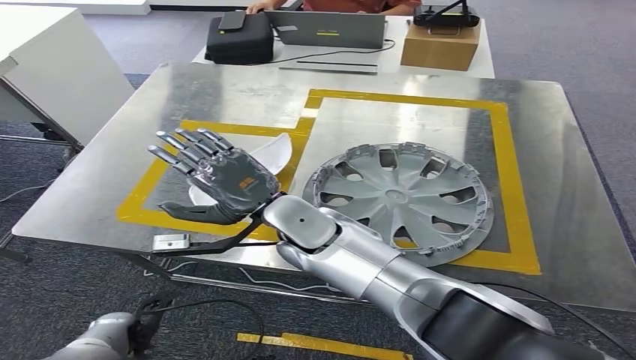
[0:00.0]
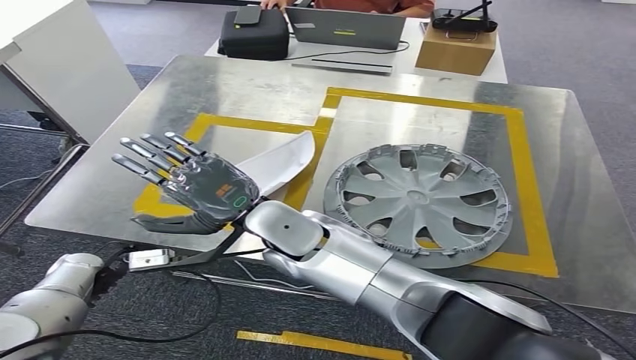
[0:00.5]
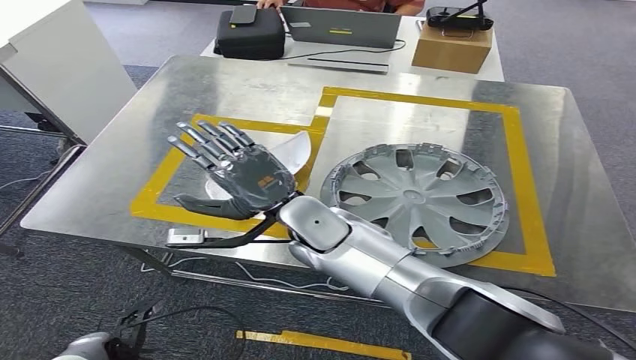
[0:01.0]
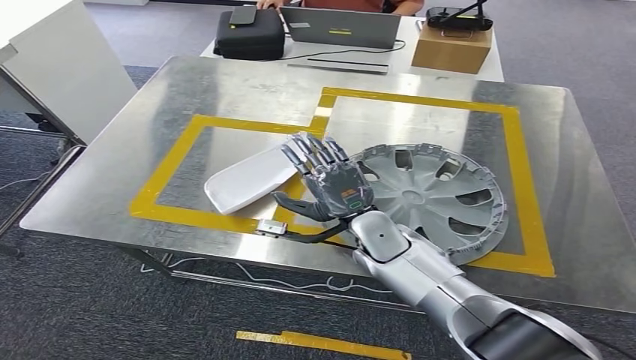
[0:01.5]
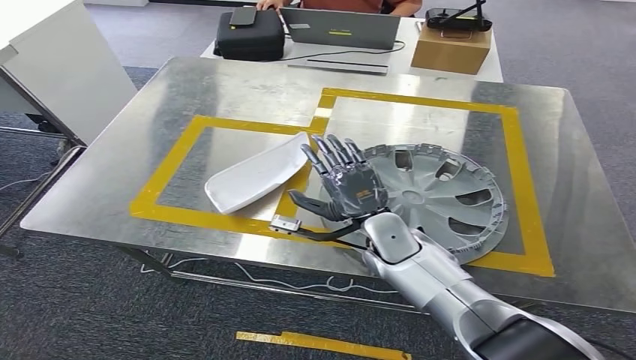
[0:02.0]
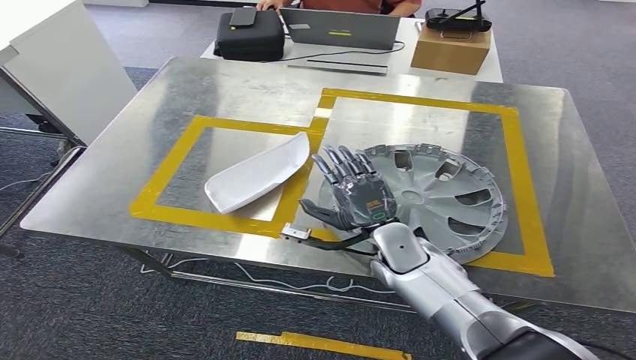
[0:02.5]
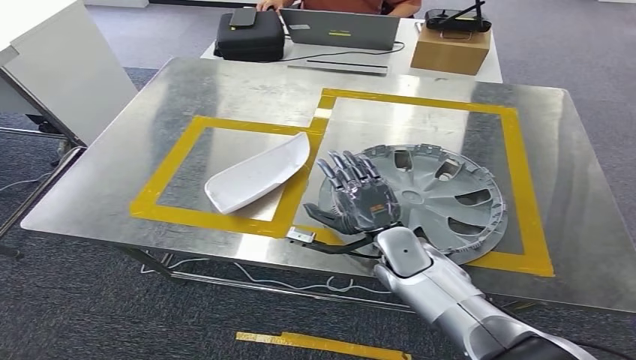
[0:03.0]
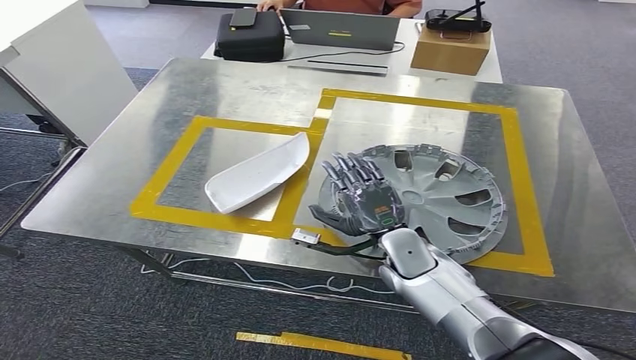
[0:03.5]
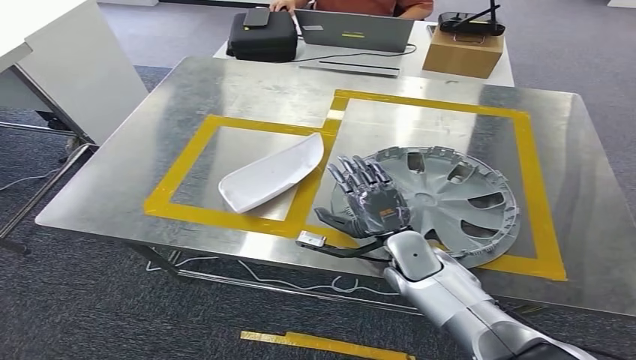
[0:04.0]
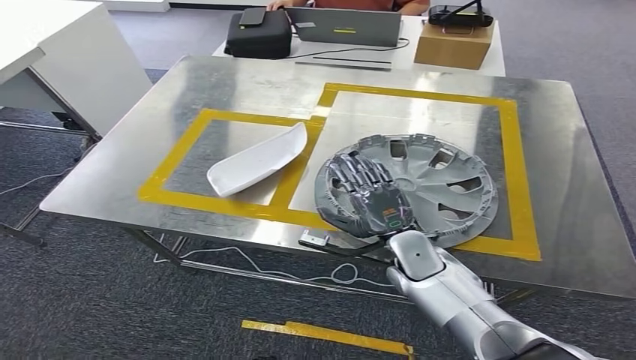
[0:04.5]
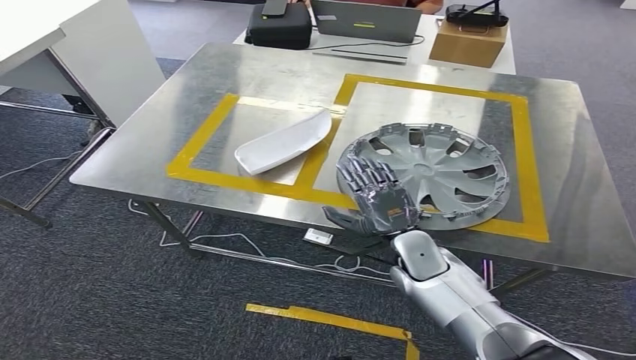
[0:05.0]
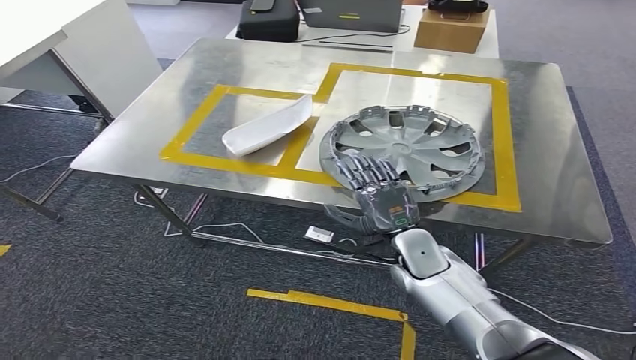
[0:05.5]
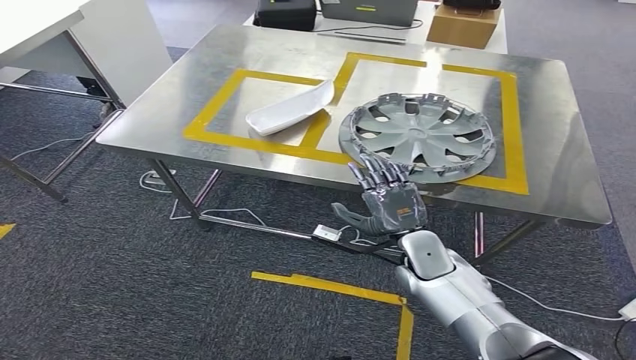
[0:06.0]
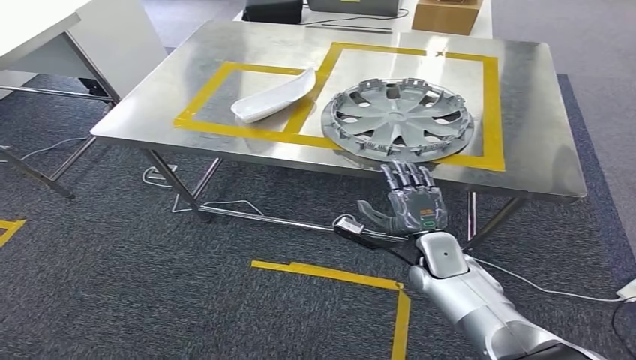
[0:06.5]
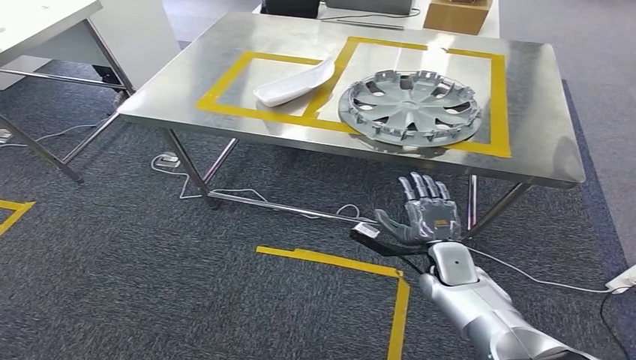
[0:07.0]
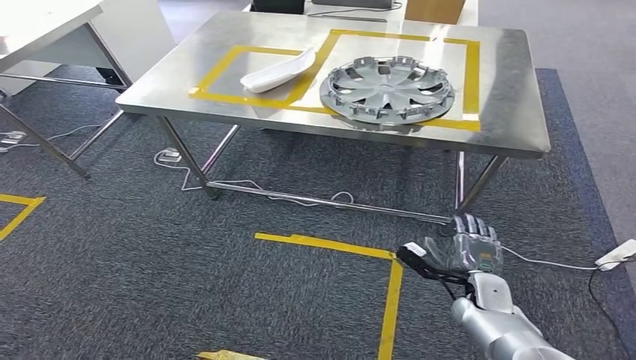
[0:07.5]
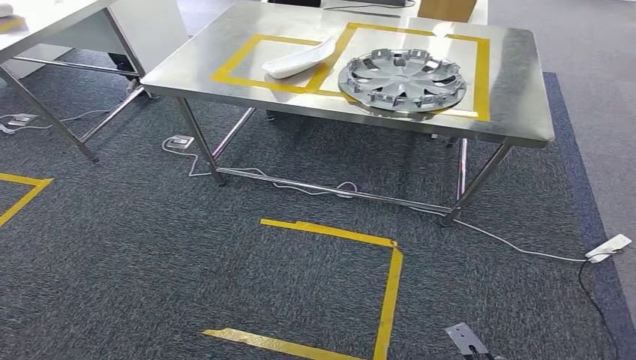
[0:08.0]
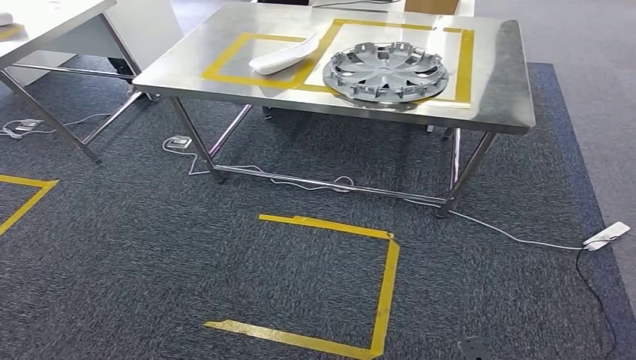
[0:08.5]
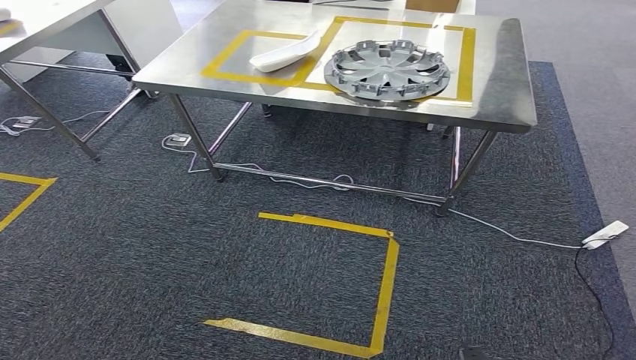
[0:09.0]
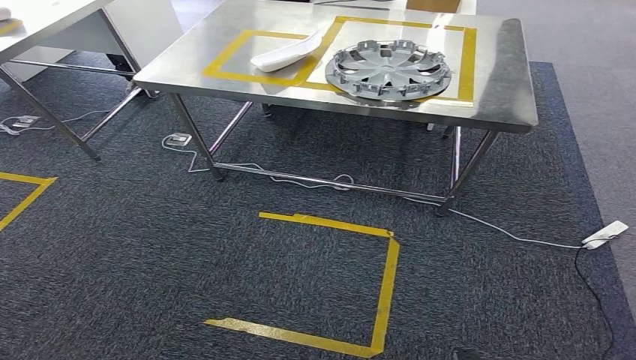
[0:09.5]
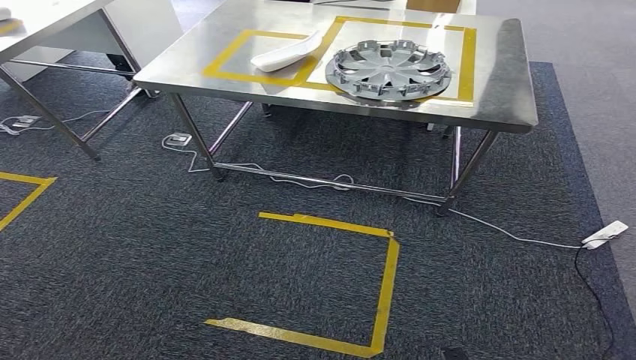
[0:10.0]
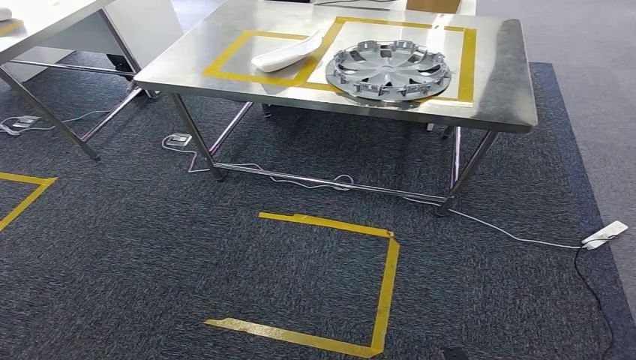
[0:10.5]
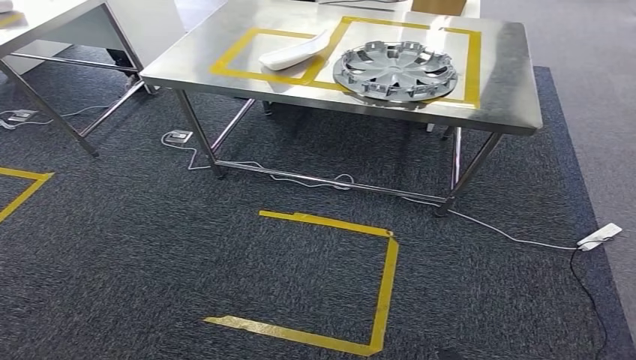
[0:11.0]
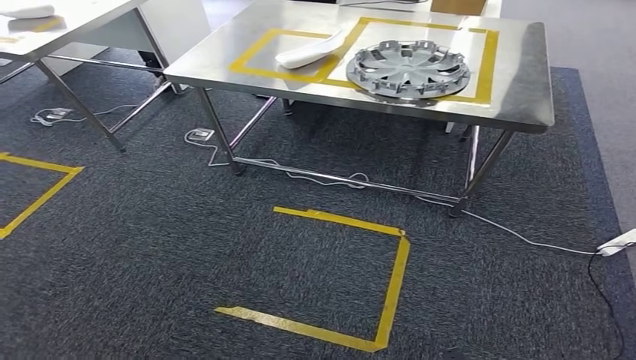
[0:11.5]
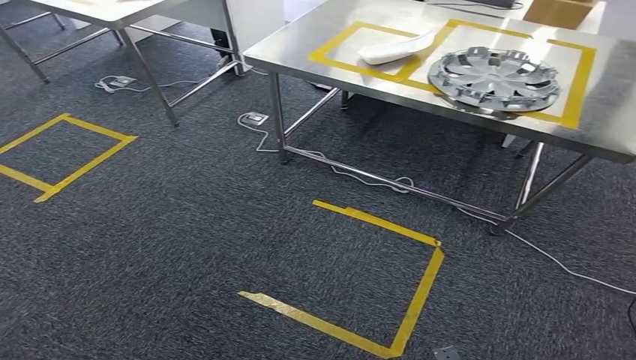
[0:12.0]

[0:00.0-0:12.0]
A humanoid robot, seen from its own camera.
Step, 0:00.0 to 0:04.5: Insert the small component into the corresponding slot on the workbench.

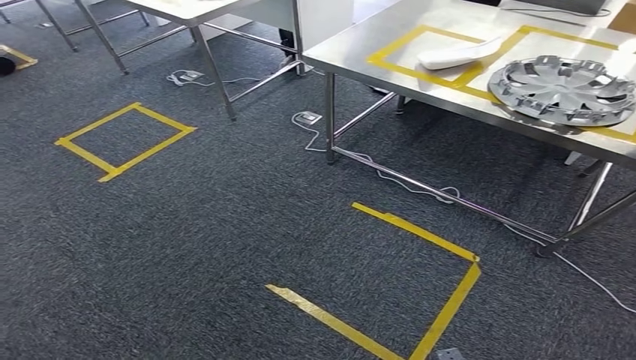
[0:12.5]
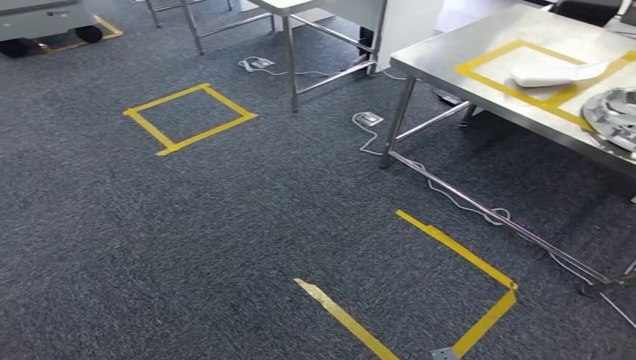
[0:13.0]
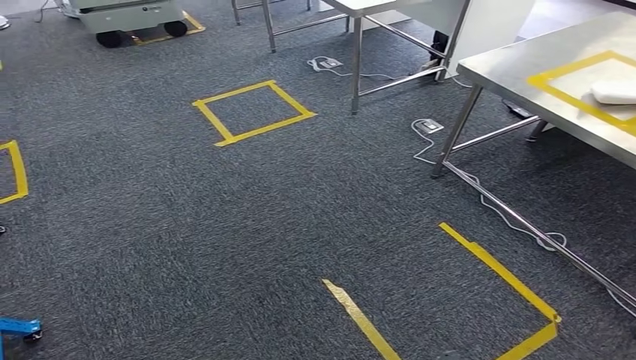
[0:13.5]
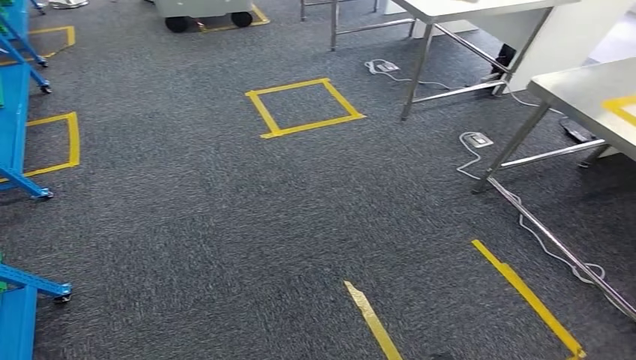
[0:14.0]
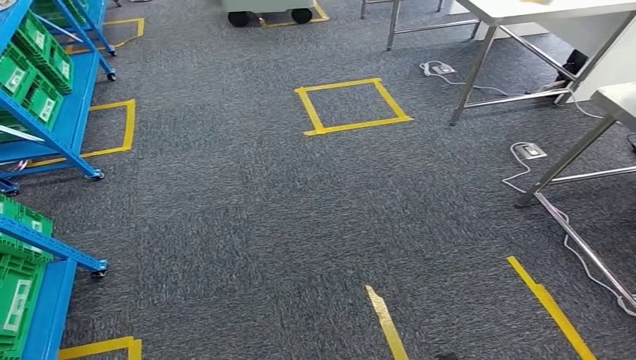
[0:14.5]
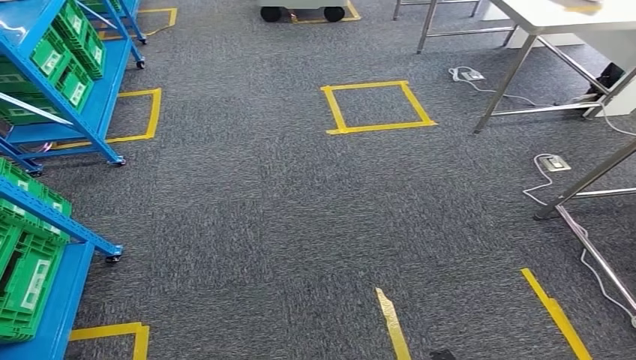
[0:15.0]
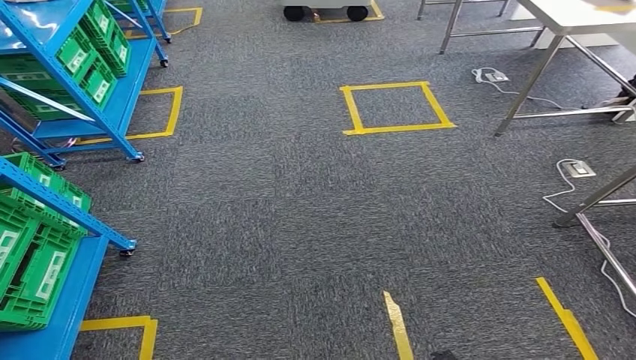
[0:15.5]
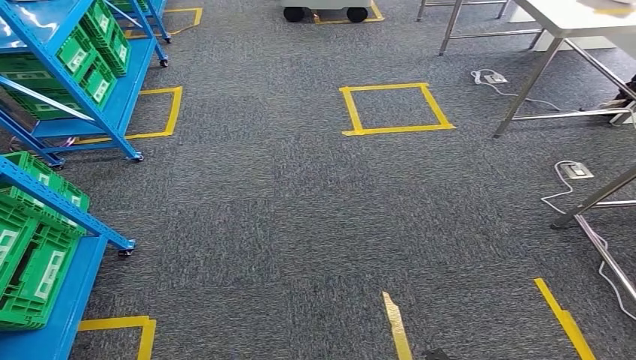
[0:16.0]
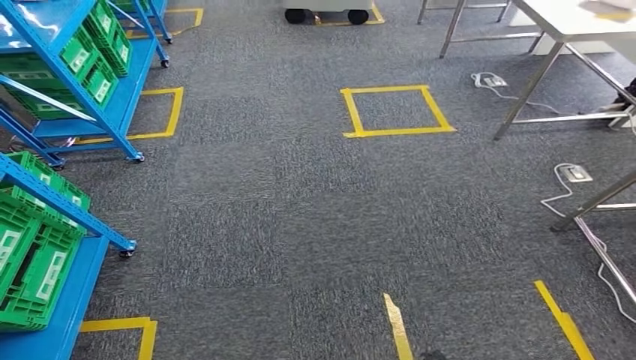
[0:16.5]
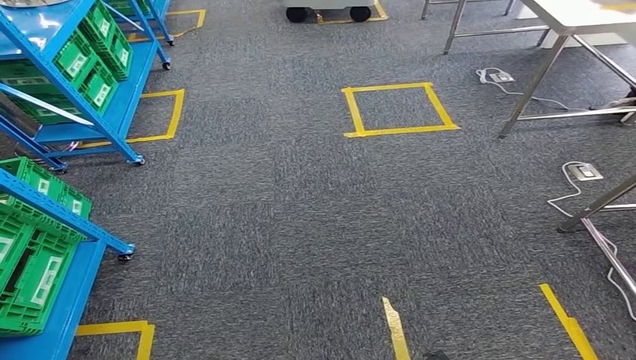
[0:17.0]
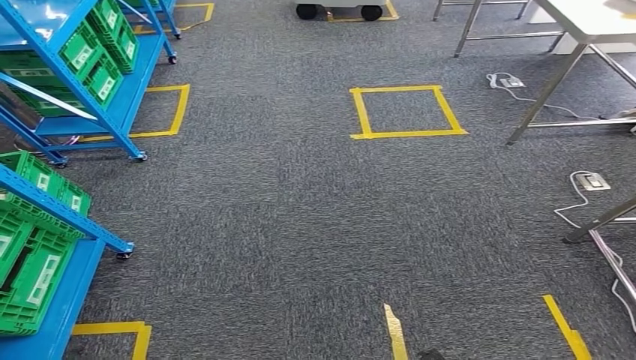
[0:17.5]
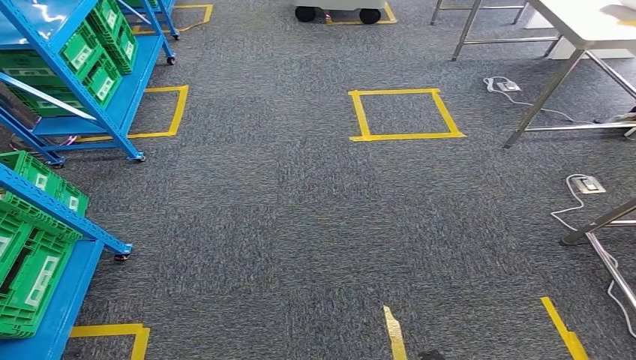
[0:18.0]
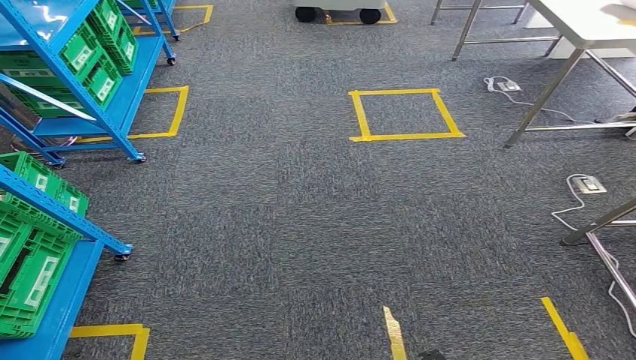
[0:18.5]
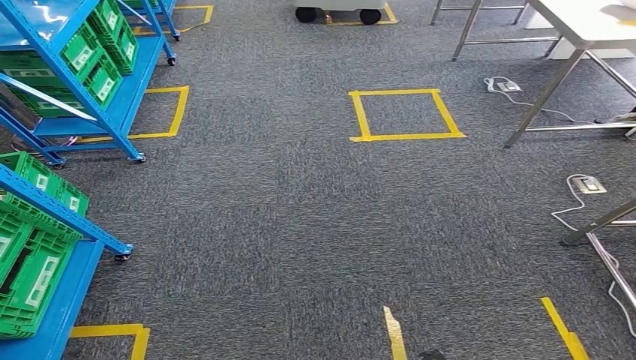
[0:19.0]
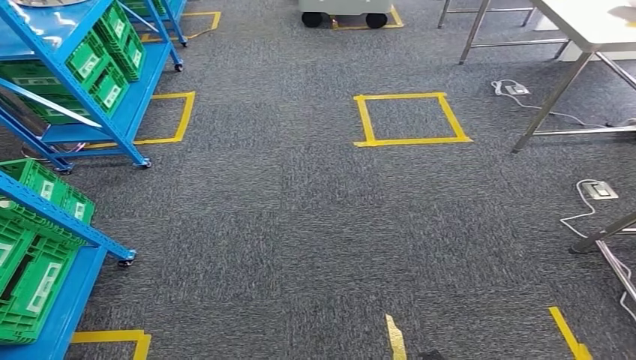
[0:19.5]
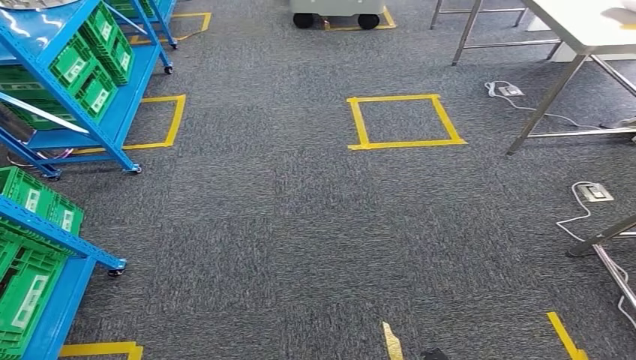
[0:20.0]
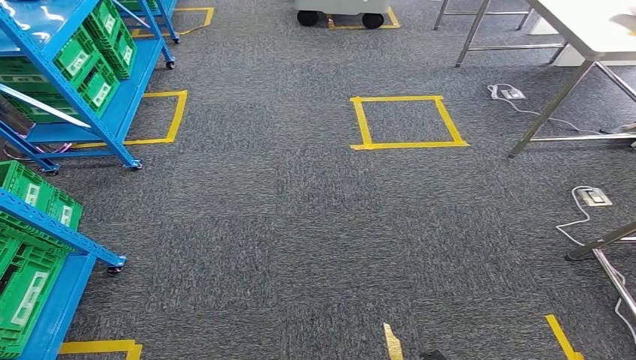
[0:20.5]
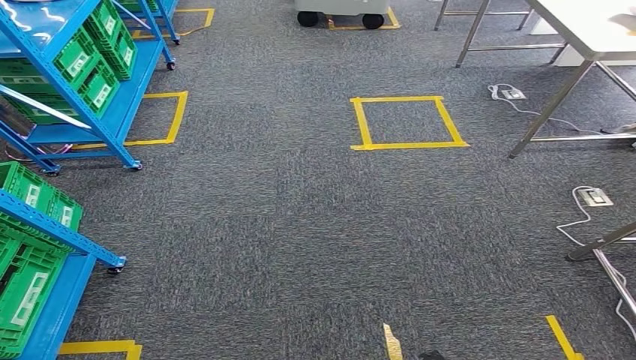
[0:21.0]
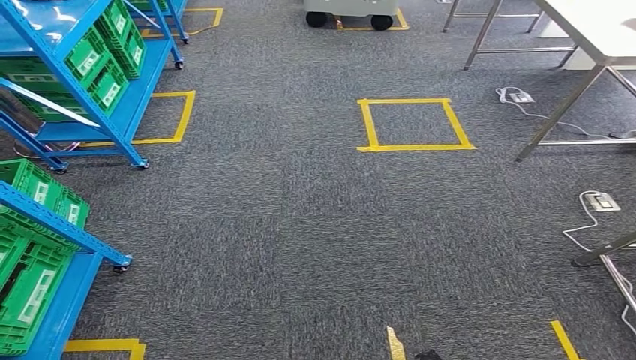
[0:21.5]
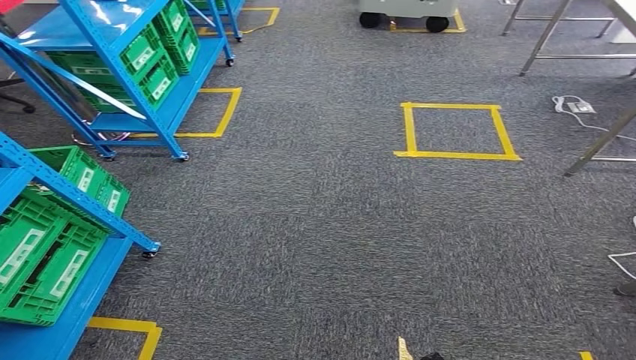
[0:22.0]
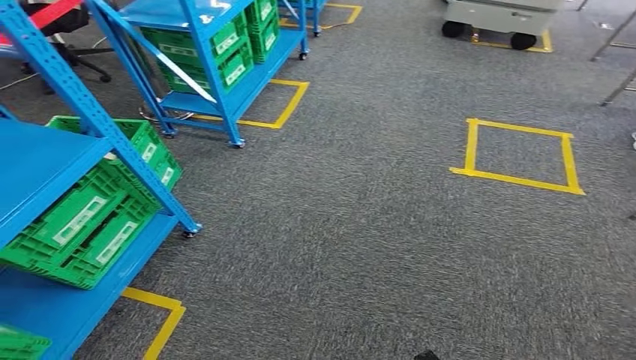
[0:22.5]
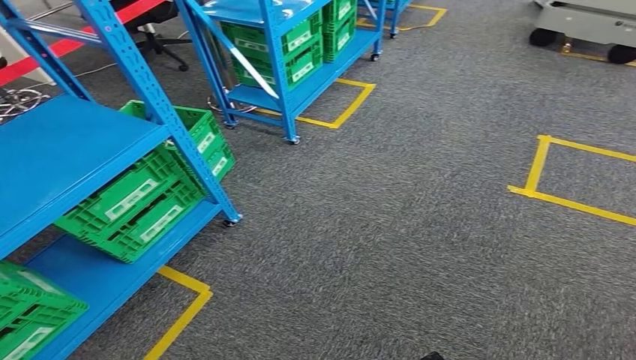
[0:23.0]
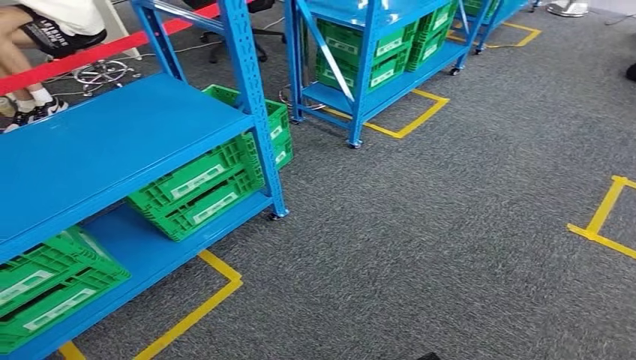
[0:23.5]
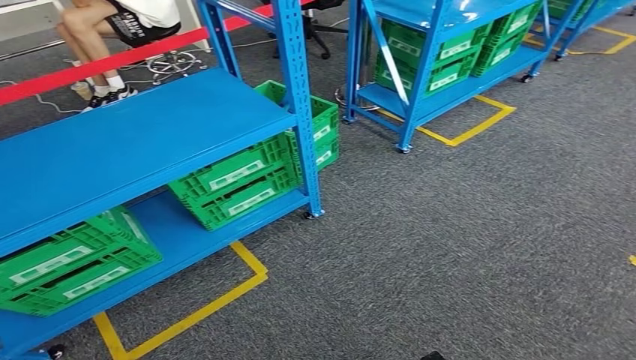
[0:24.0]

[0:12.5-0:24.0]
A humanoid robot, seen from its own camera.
0:16.5 to 0:20.0: Both hands stay about where they are.
